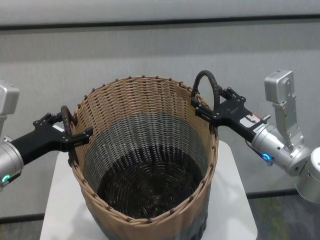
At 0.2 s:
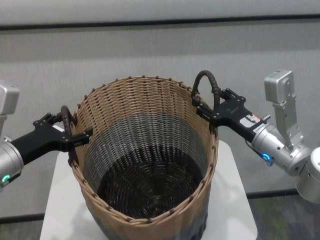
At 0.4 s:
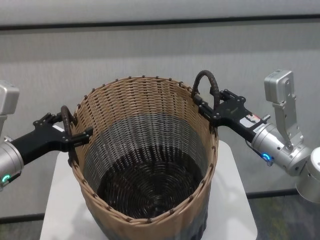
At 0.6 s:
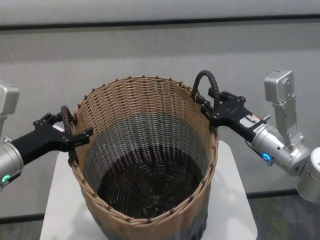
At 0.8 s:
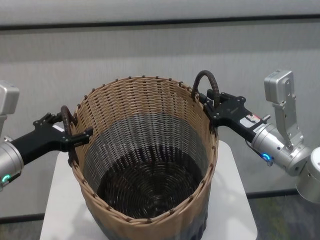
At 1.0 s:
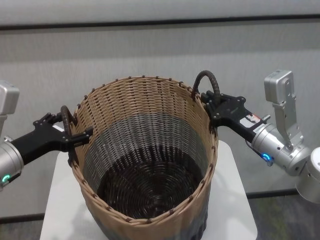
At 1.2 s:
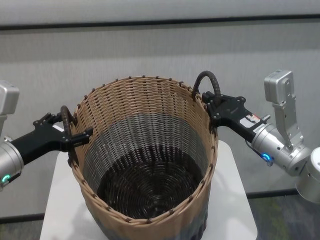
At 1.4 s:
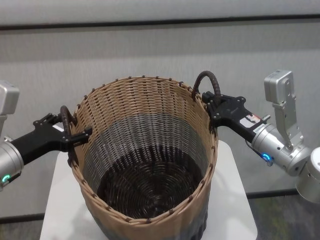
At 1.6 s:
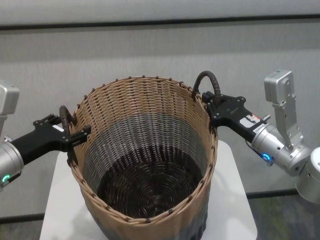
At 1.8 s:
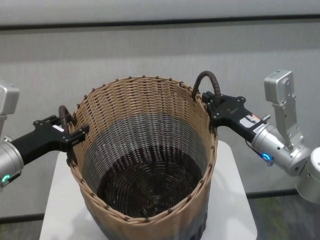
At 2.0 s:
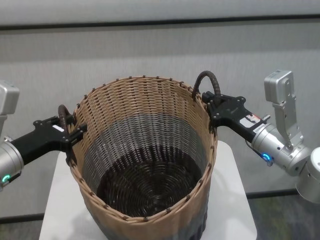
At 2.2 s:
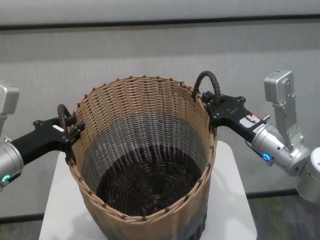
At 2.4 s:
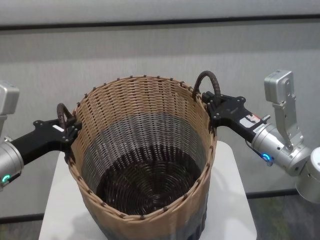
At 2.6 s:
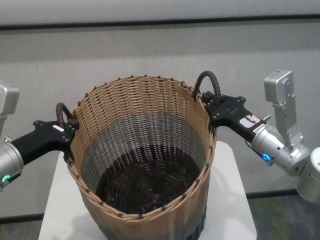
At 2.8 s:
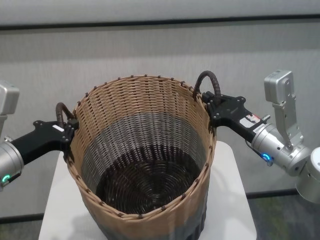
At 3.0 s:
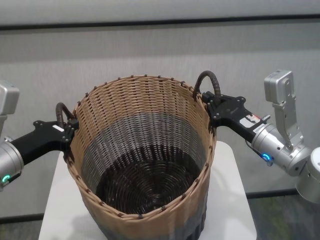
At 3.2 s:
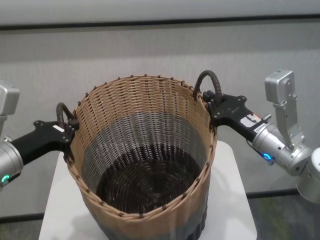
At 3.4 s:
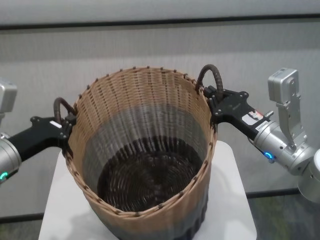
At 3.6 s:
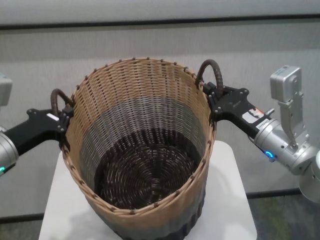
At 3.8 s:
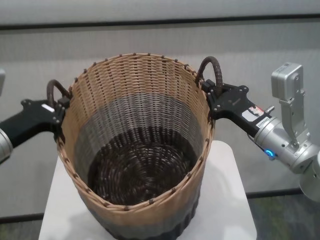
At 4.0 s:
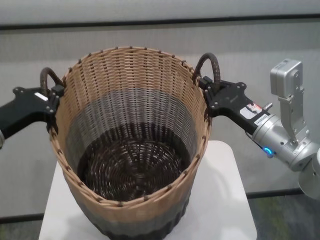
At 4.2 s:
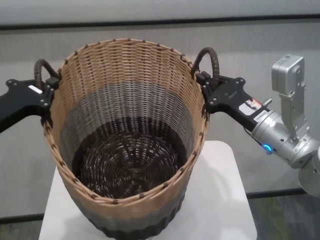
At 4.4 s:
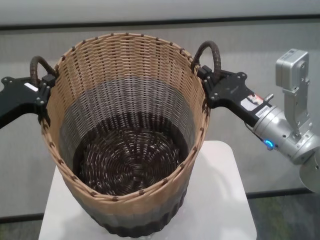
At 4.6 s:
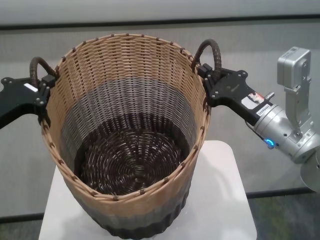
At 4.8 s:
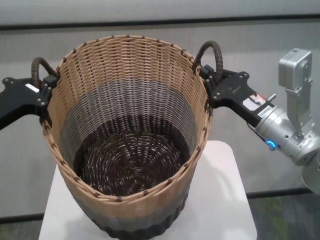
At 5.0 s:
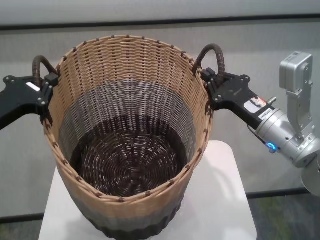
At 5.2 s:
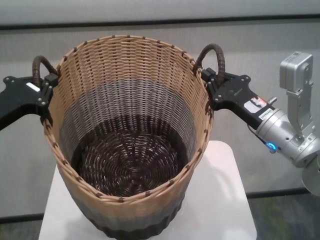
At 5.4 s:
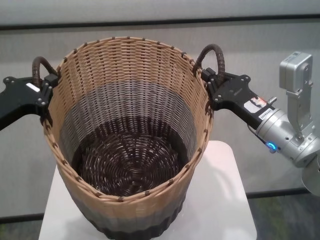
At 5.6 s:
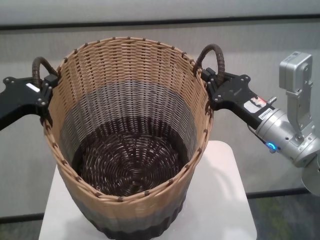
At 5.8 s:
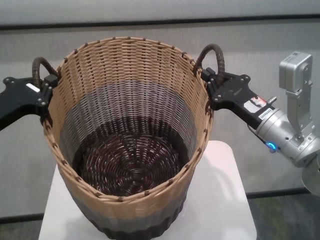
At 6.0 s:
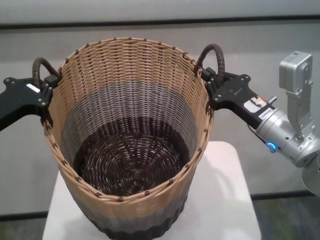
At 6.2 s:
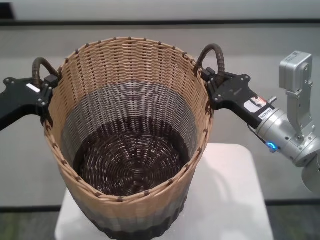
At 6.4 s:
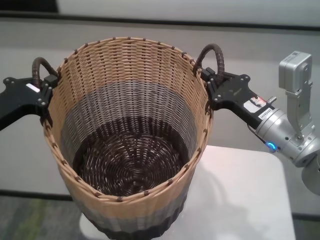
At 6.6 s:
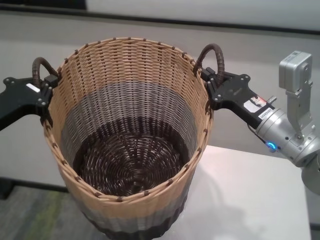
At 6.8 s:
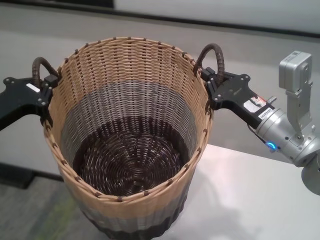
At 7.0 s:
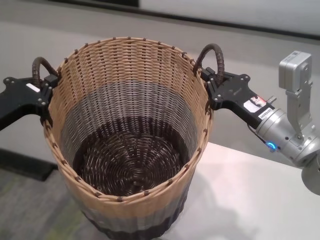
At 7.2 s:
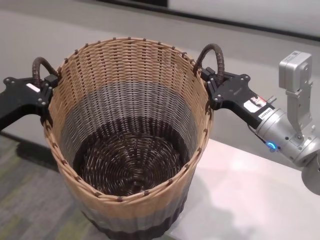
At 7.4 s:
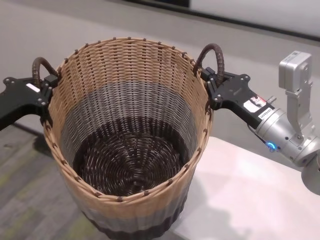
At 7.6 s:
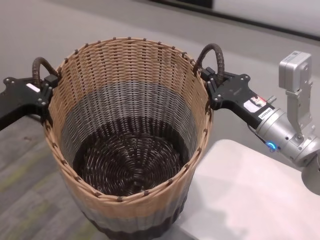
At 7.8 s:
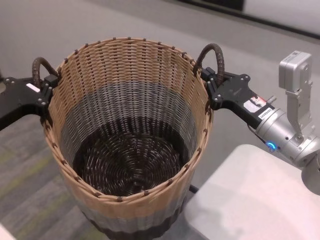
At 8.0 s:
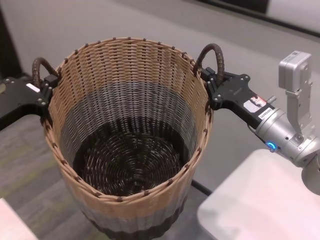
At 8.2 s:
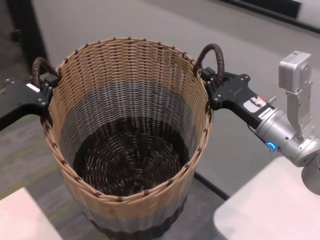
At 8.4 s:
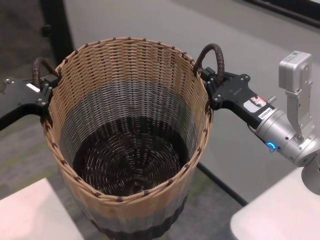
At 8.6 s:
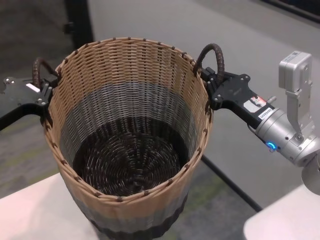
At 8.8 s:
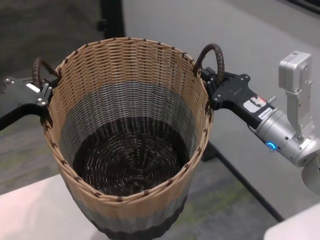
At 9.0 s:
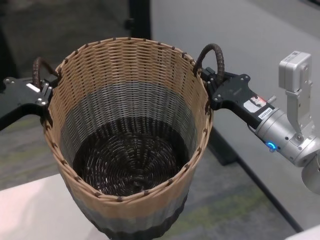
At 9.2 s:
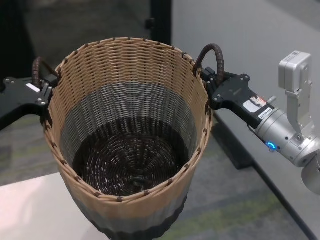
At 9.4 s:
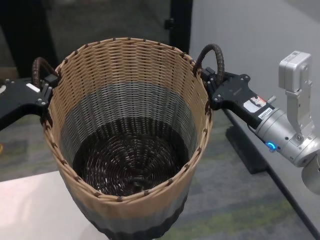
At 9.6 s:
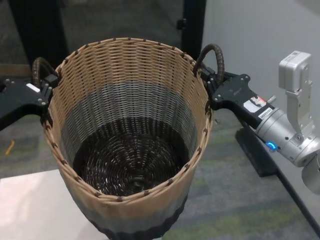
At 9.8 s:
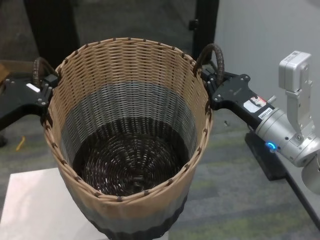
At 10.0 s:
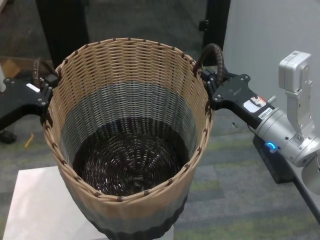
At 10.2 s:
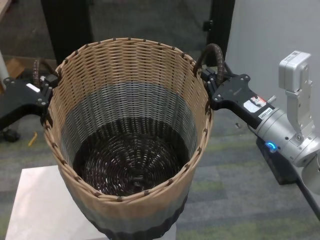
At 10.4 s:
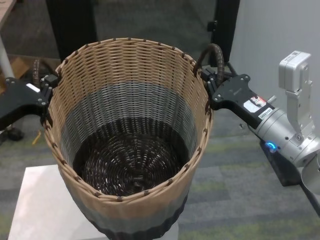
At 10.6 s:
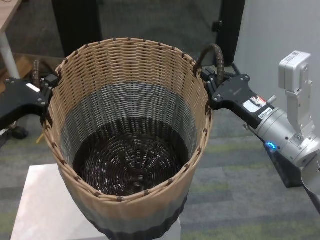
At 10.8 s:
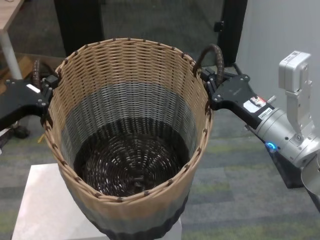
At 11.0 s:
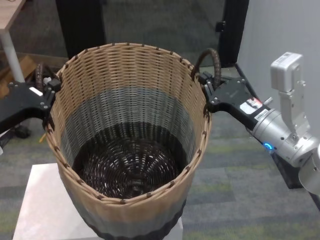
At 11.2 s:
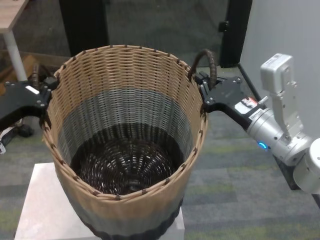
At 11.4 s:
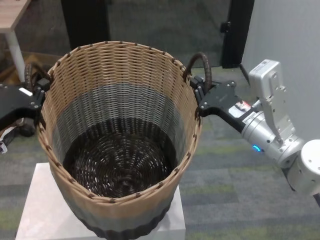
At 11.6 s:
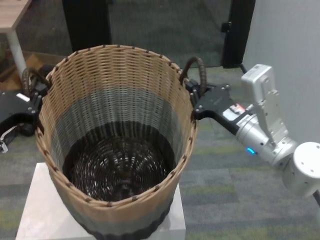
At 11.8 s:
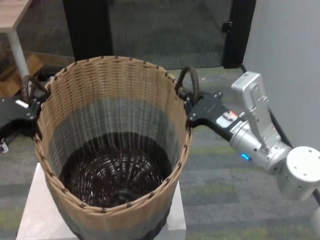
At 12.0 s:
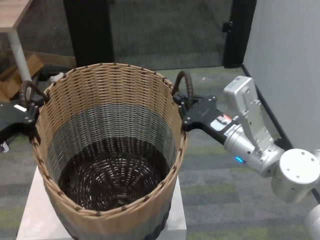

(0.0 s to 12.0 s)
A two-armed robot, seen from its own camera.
Task of the whole recording: carry the clothes basket in coordination with both hands.
Step, 1.4 s - 3.0 s: Grasp the basket with left gripper.
Step, 3.2 s - 11.2 s: Move the basket above the other table.

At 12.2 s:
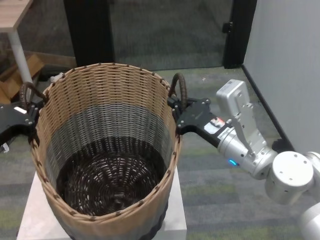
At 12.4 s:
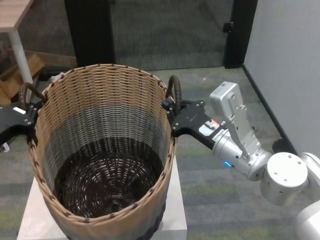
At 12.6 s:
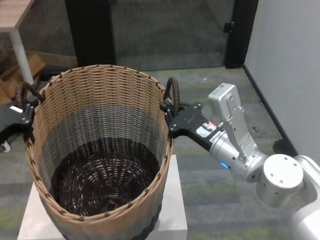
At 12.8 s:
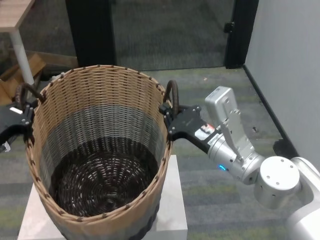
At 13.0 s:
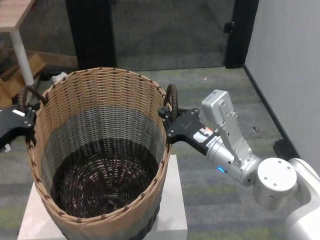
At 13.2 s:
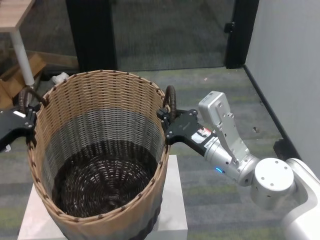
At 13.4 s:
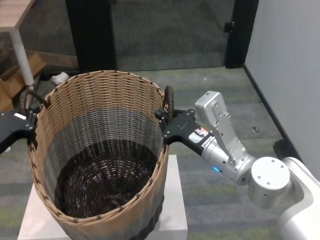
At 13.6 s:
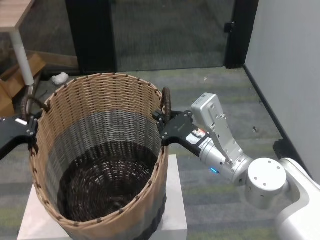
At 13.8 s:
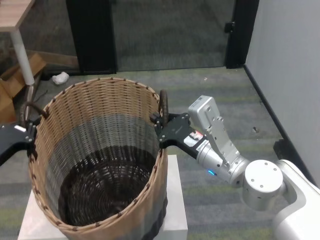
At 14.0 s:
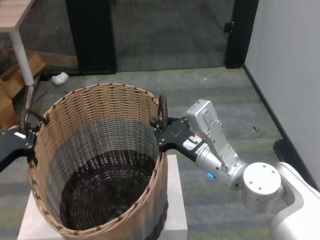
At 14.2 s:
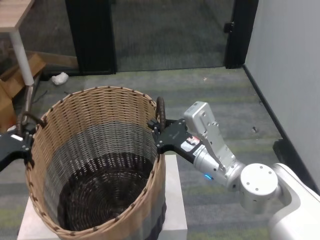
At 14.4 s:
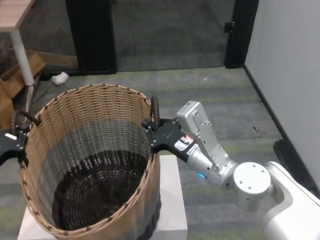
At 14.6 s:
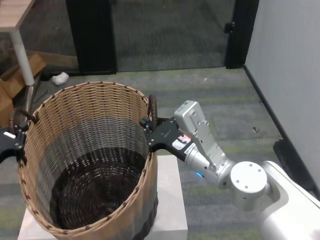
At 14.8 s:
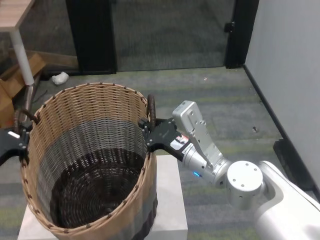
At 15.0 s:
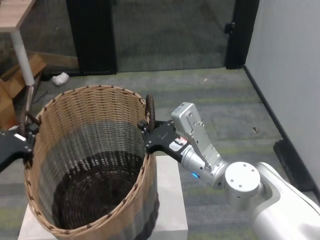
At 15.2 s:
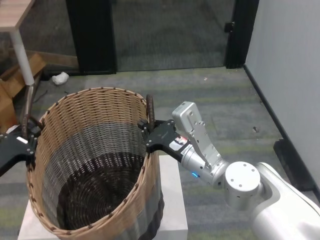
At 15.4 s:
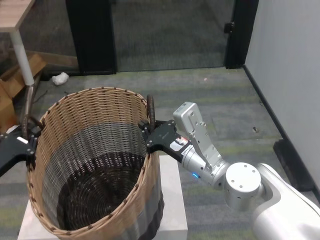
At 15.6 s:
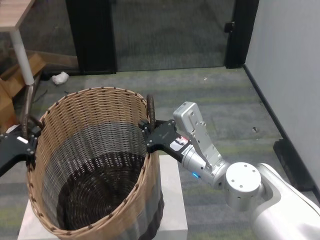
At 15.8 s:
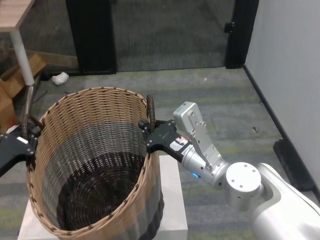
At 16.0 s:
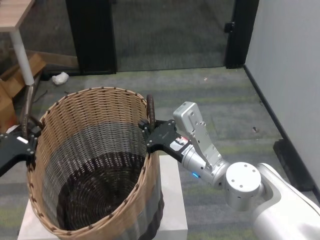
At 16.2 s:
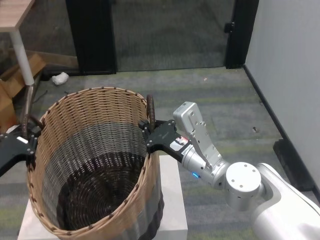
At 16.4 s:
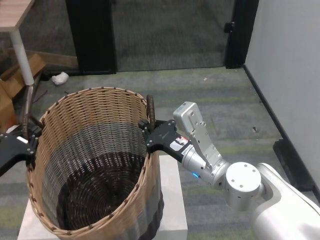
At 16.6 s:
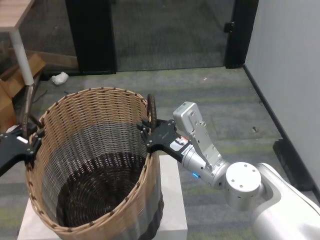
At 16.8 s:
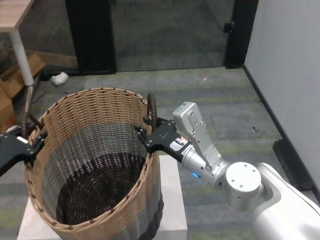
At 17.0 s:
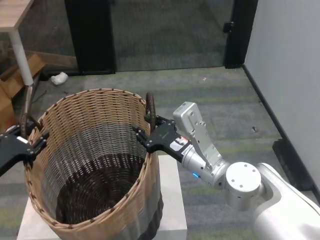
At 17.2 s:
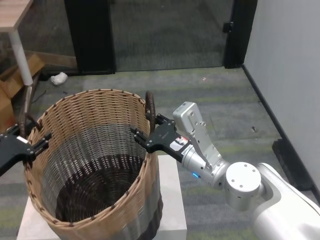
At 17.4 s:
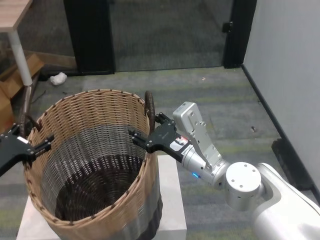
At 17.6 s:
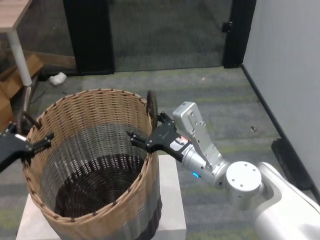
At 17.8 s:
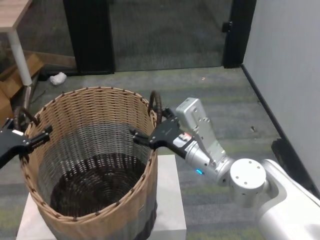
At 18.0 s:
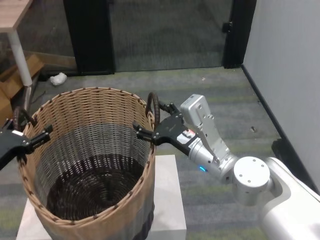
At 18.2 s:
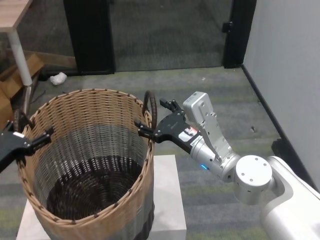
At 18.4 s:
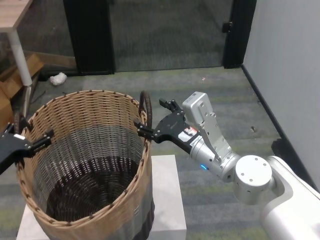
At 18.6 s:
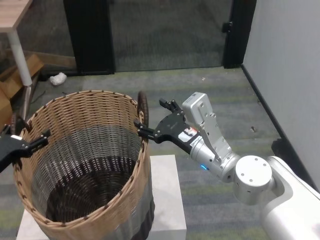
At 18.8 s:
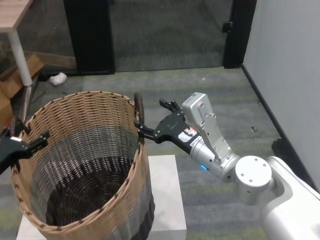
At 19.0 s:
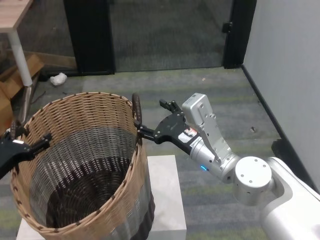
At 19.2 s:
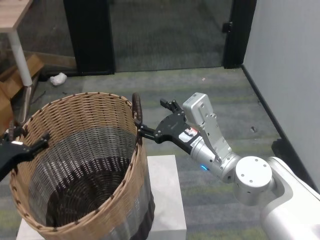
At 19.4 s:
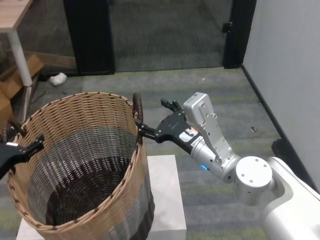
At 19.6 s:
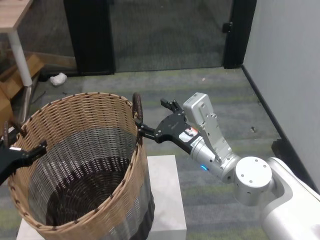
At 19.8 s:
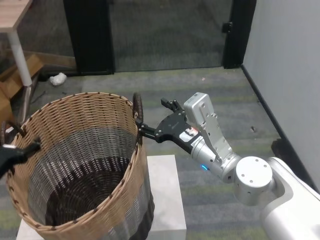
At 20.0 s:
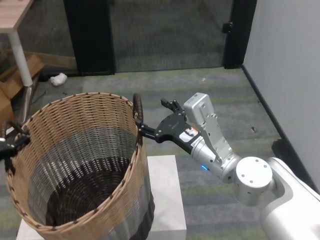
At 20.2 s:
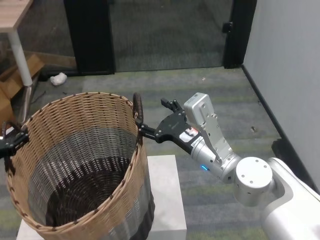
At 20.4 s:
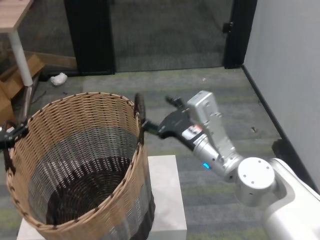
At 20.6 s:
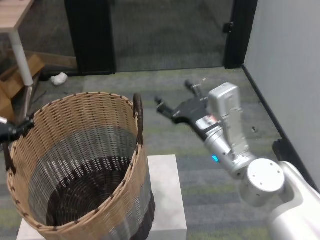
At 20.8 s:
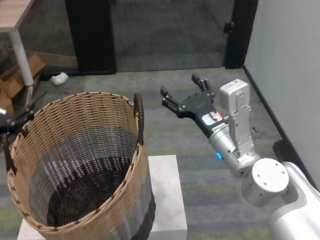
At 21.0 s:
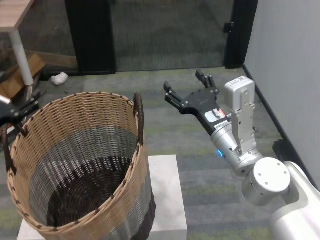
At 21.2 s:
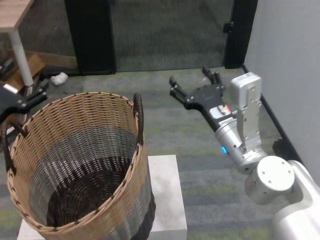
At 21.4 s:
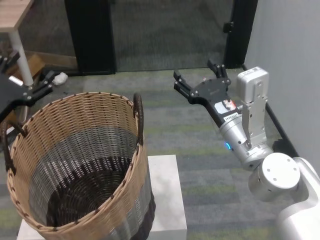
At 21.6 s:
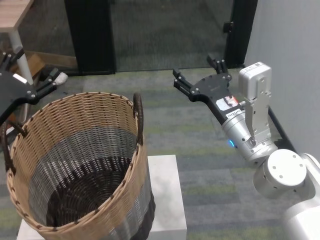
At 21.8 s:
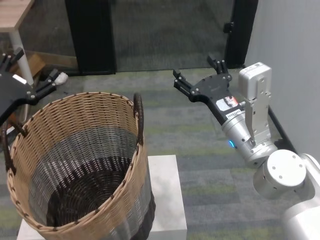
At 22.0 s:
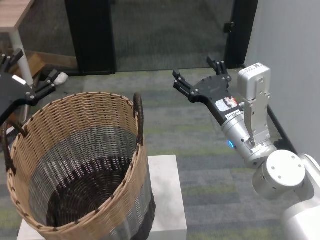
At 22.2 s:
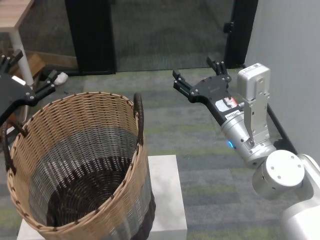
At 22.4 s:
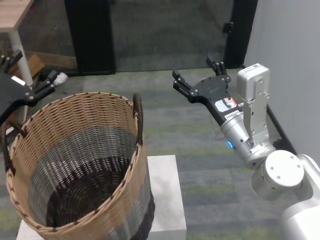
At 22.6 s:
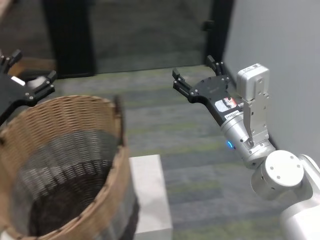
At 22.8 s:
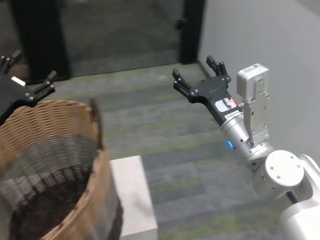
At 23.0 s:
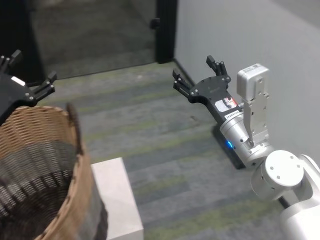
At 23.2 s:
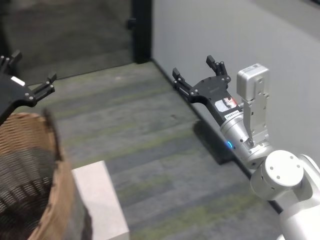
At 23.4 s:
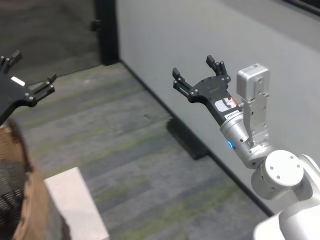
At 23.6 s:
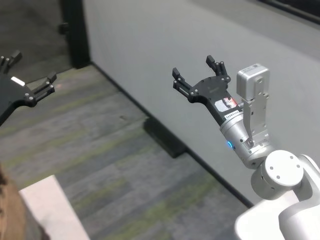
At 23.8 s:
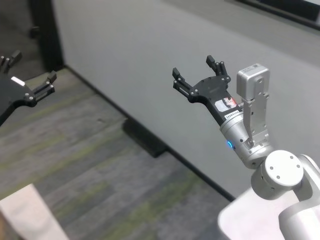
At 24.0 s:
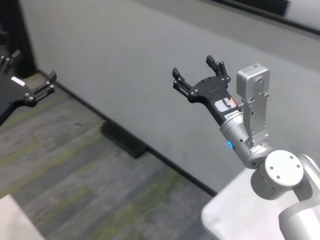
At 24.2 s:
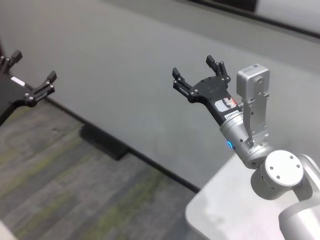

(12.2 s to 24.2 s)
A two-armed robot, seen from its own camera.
Task of the whole recording: carry the clothes basket in coordination with both hands.
Step, 12.2 s - 19.2 s: Place the basket on the table with both grippers.
